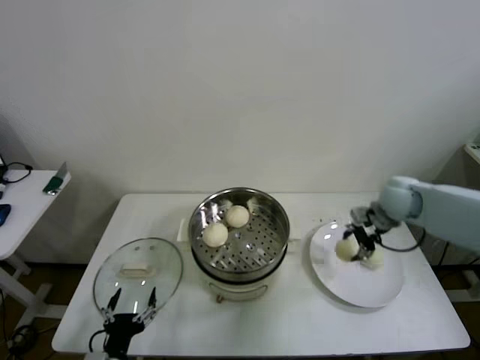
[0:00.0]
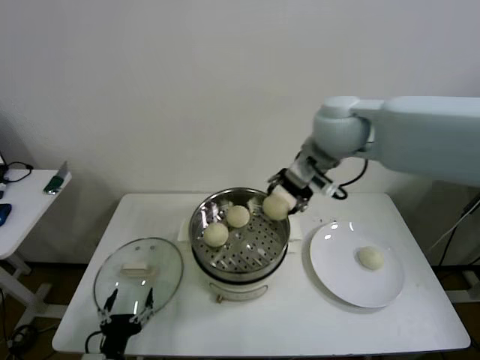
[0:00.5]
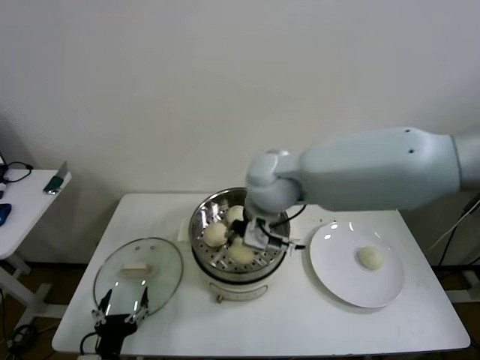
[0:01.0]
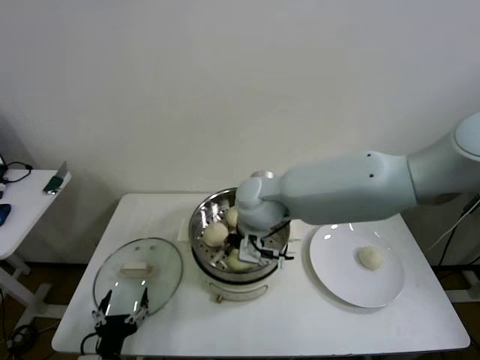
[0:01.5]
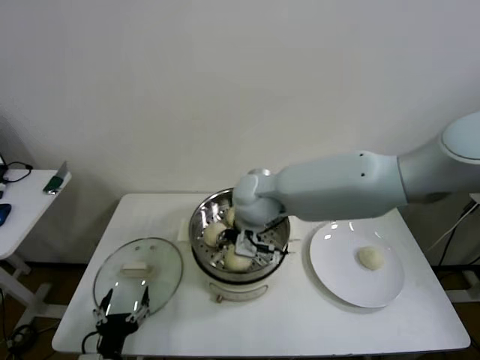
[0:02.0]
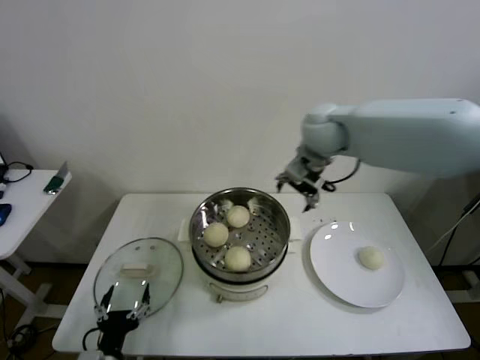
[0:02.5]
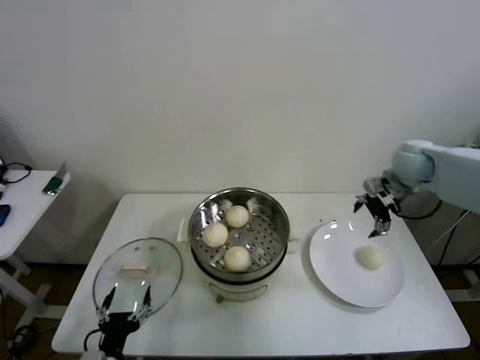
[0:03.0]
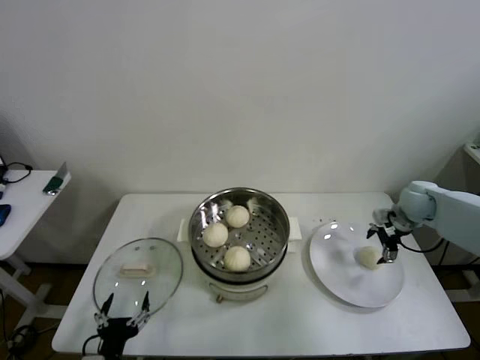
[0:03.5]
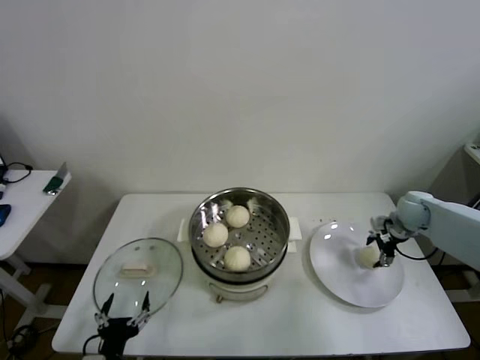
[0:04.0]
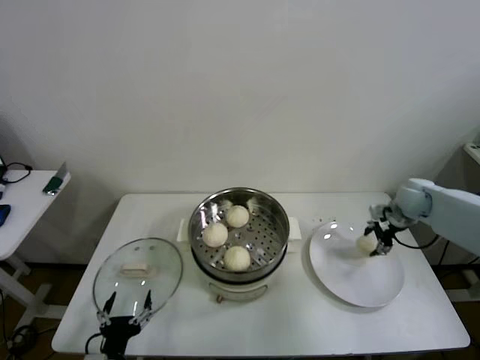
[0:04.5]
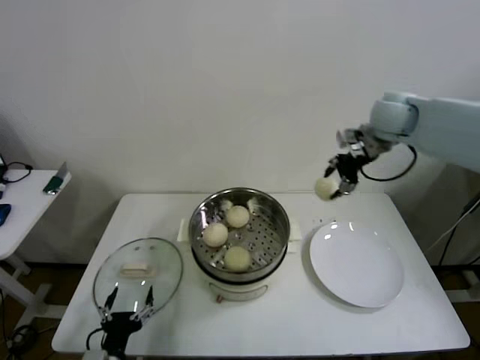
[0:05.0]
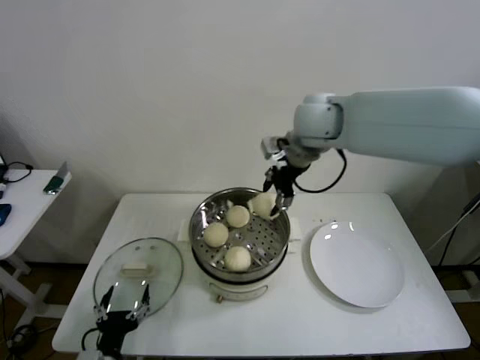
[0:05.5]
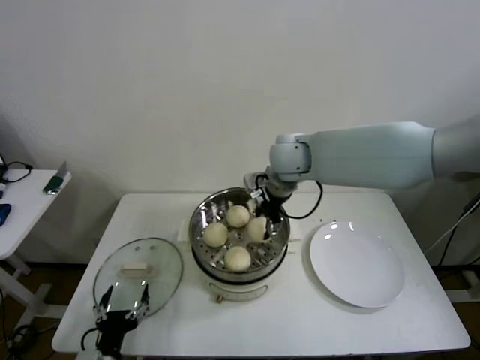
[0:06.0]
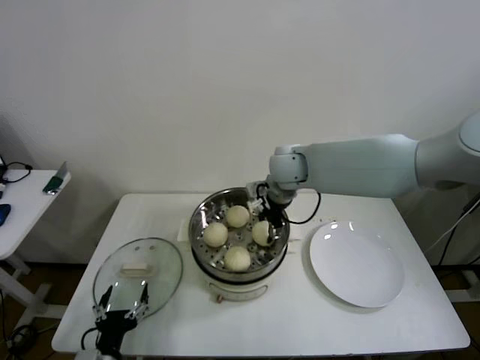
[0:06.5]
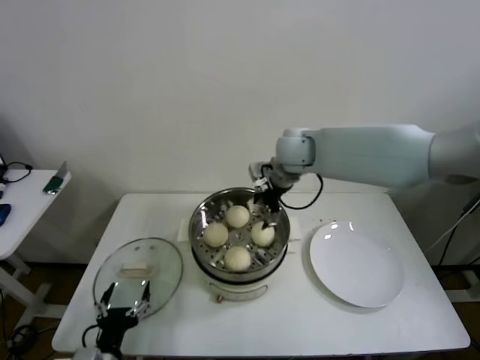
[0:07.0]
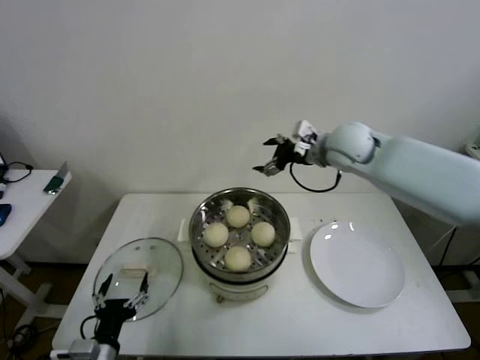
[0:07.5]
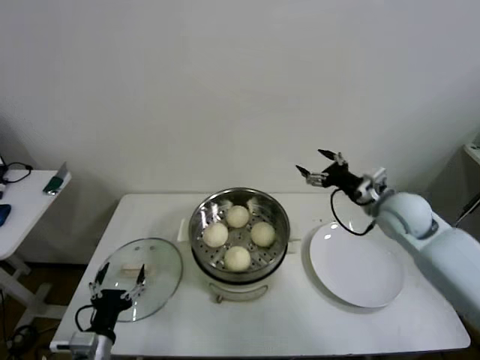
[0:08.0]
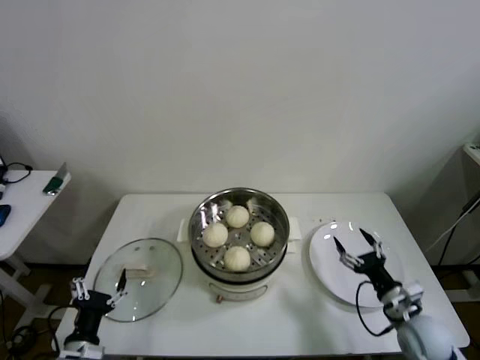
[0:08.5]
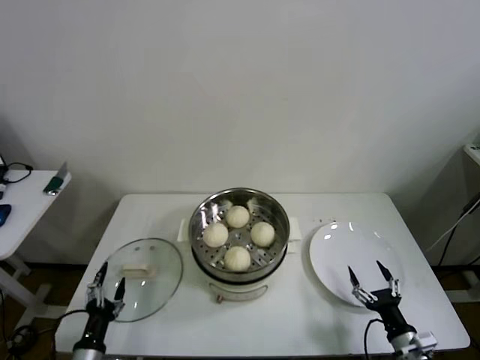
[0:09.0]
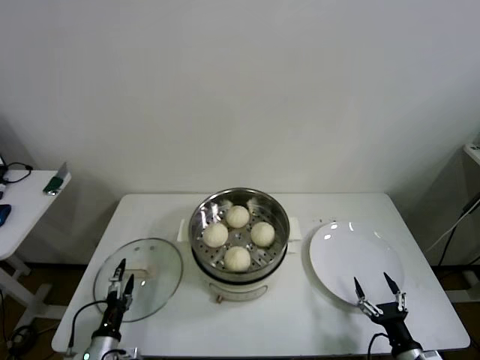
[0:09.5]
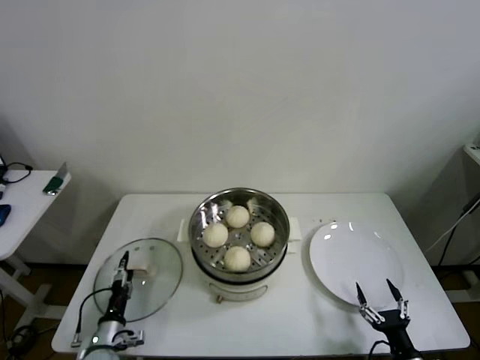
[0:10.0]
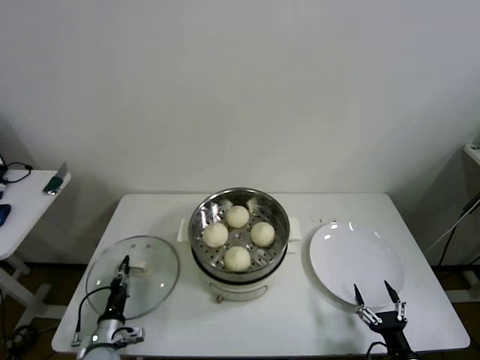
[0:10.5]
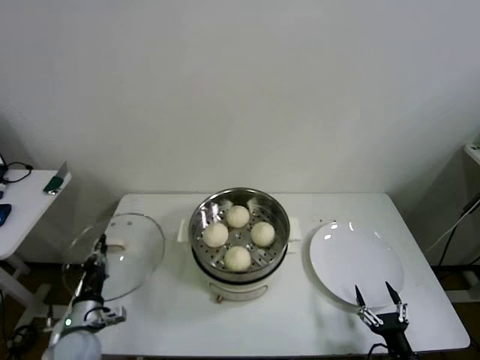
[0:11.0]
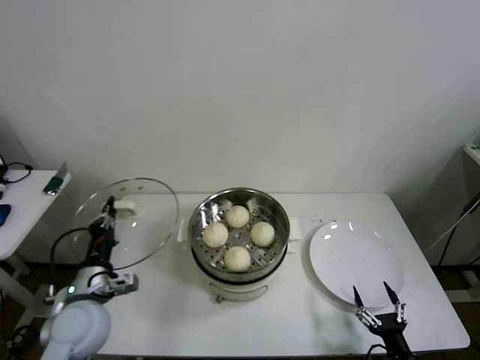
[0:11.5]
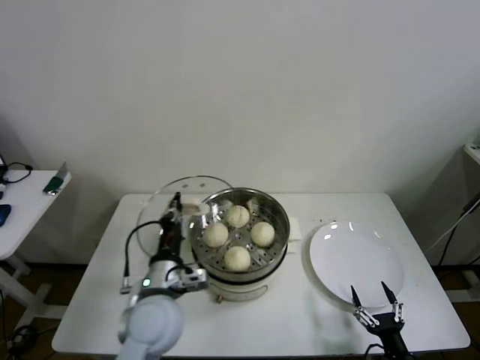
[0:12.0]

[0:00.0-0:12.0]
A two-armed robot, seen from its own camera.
Step, 0:00.0 to 0:02.0: Place the baozi on the steamer with right gripper.
Step, 0:02.5 to 0:04.0: Grasp the baozi in the plate with right gripper.
Step, 0:04.5 to 0:06.5: Place the baozi on the steamer with right gripper.
Step, 0:07.0 to 0:10.5: Grasp the pot lid with left gripper.
0:00.0 to 0:02.0: The right gripper heads to the left, covering some 30 cm, and opens up.
0:02.0 to 0:04.0: The right gripper travels to the right by some 40 cm.
0:04.0 to 0:06.0: The right gripper travels to the left and upward by roughly 40 cm.
0:06.0 to 0:08.0: The right gripper heads to the right and downward, covering about 25 cm, and opens its fingers.
0:08.0 to 0:10.0: The right gripper shifts some 40 cm backward and downward. Meanwhile the left gripper is displaced downward and forward by approximately 15 cm.
0:10.0 to 0:12.0: The left gripper is displaced upward and to the right by about 30 cm, and closes its fingers.

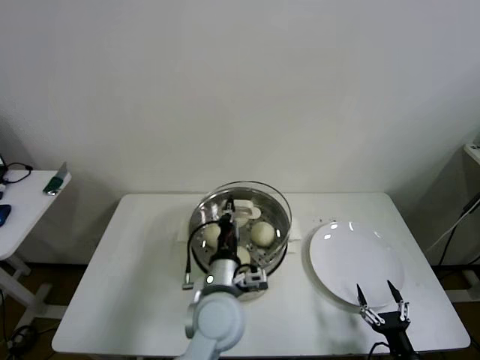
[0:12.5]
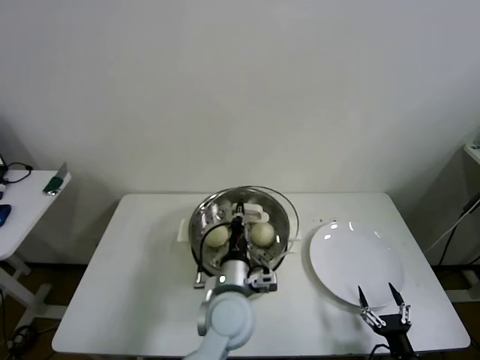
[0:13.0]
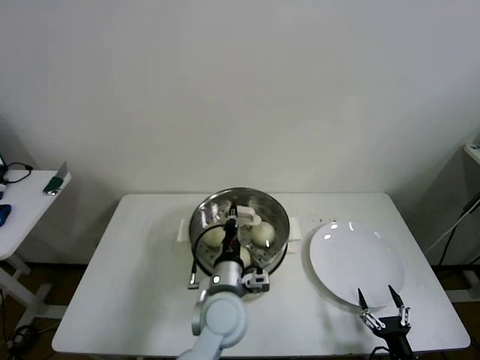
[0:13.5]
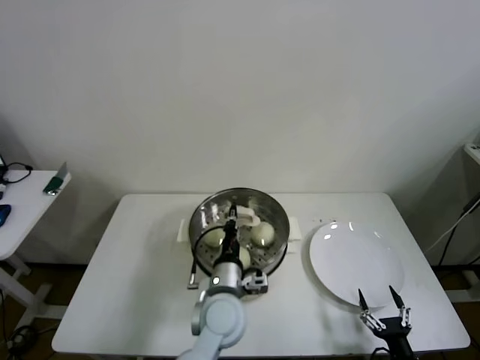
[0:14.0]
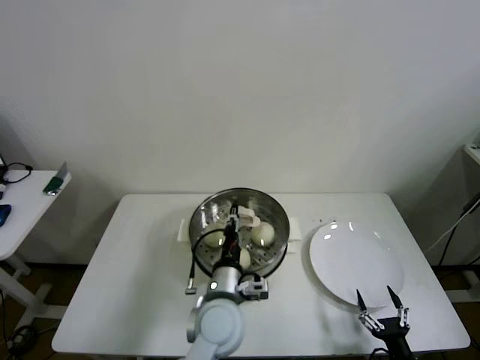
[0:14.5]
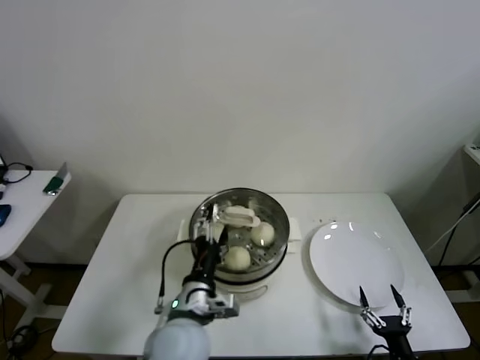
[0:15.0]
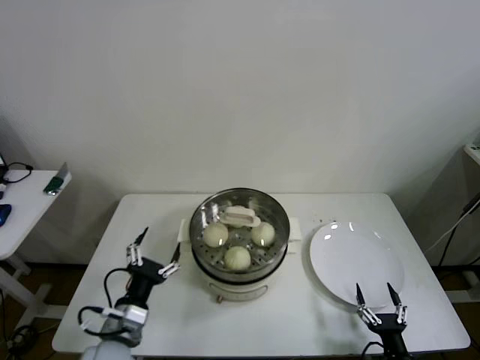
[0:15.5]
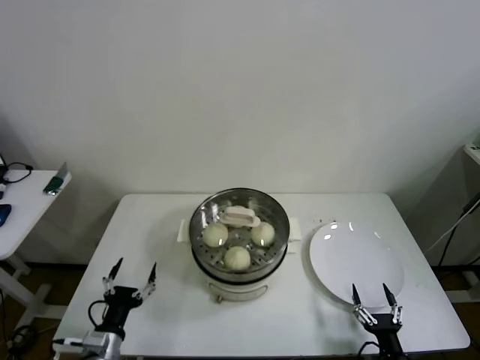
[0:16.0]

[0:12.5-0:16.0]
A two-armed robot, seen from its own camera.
0:12.5 to 0:14.5: The grippers move only a little.
0:14.5 to 0:16.0: The left gripper heads to the left, covering roughly 25 cm, and opens its fingers.
